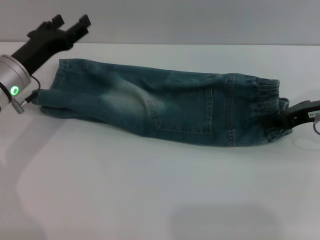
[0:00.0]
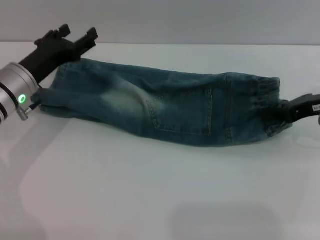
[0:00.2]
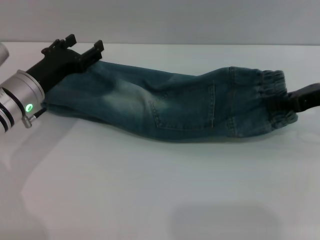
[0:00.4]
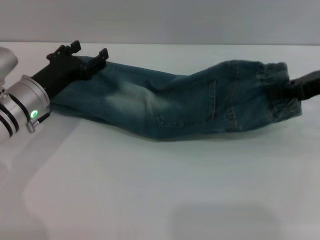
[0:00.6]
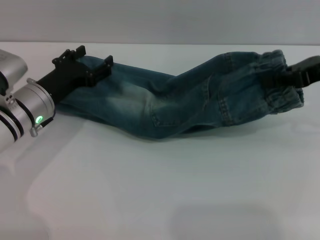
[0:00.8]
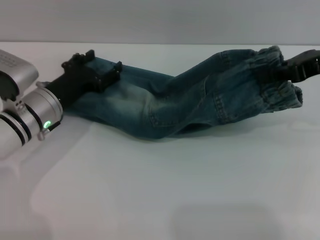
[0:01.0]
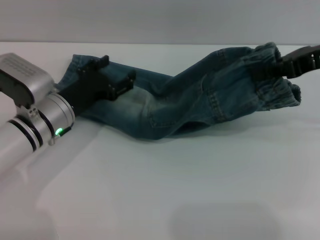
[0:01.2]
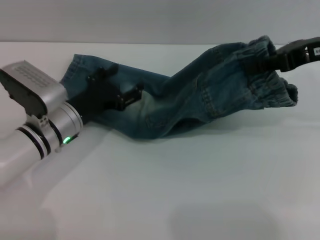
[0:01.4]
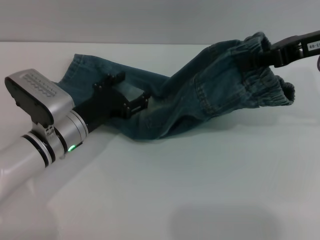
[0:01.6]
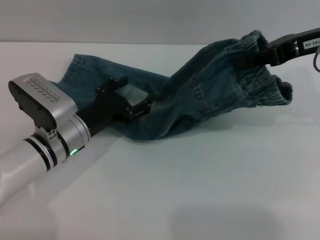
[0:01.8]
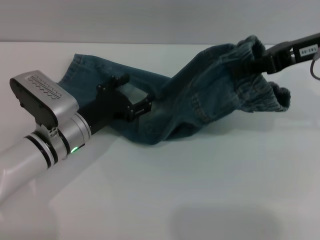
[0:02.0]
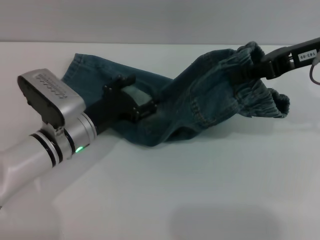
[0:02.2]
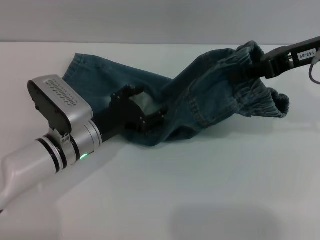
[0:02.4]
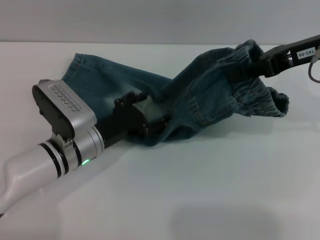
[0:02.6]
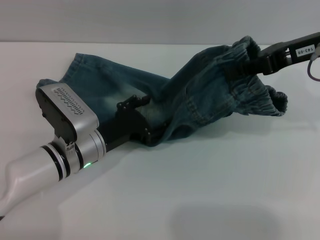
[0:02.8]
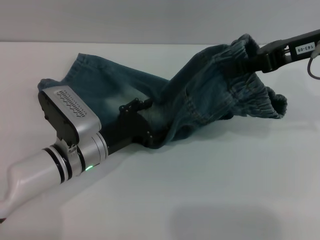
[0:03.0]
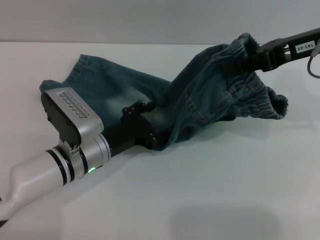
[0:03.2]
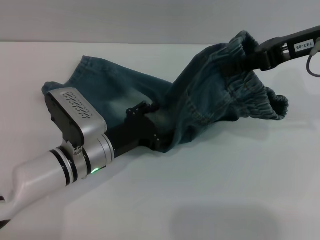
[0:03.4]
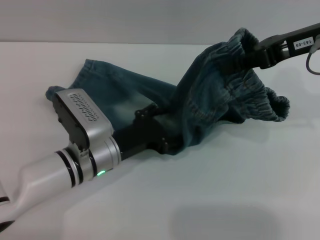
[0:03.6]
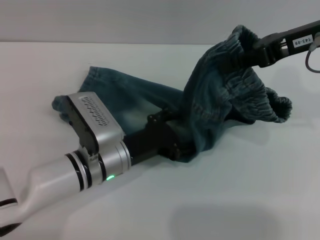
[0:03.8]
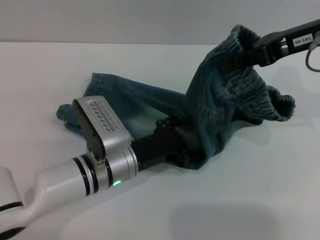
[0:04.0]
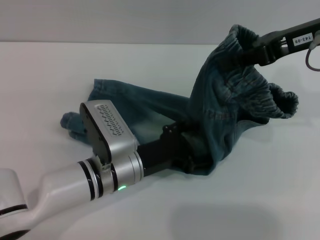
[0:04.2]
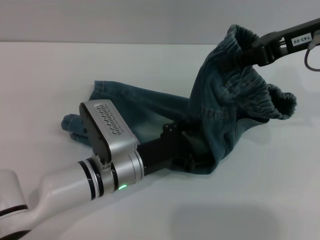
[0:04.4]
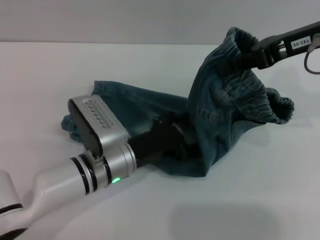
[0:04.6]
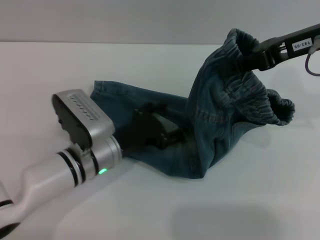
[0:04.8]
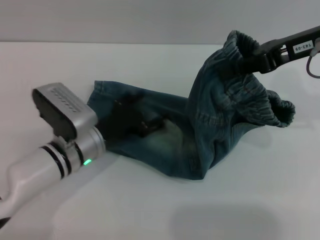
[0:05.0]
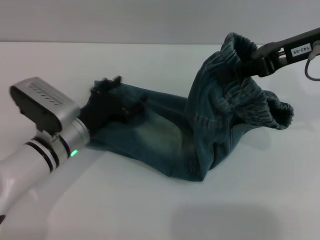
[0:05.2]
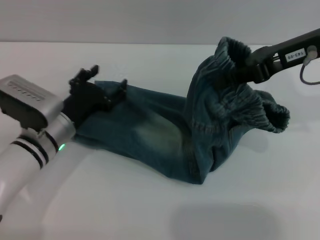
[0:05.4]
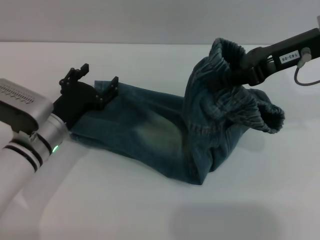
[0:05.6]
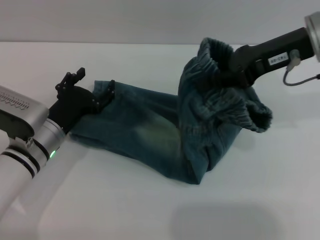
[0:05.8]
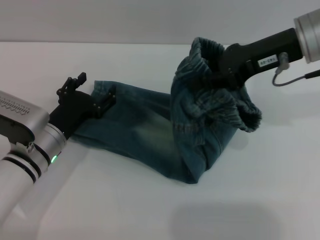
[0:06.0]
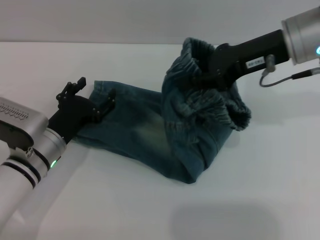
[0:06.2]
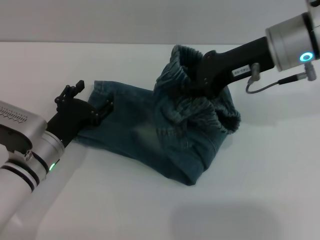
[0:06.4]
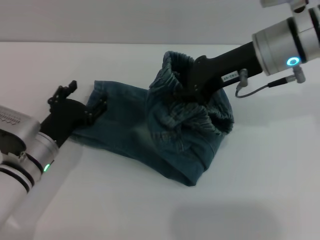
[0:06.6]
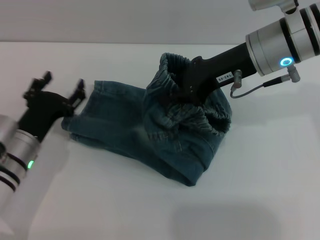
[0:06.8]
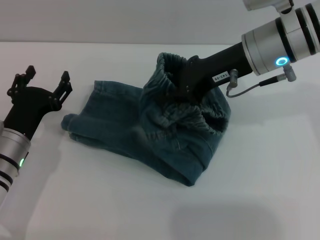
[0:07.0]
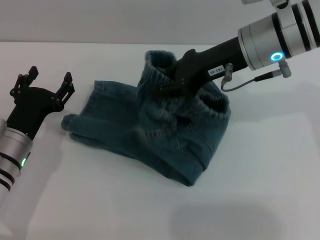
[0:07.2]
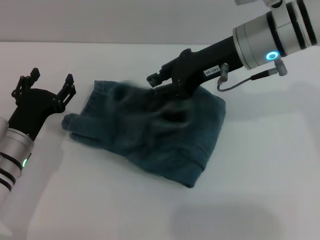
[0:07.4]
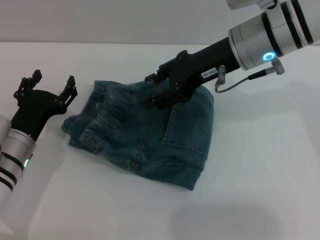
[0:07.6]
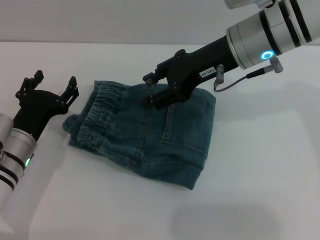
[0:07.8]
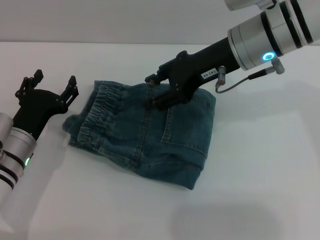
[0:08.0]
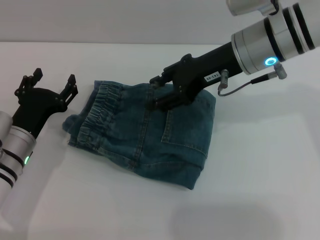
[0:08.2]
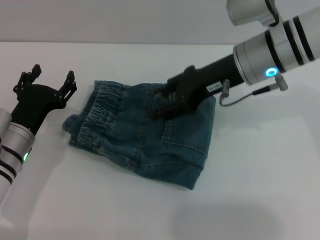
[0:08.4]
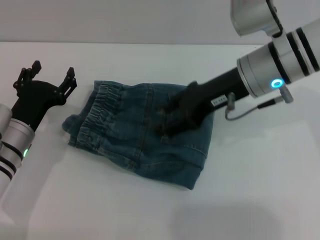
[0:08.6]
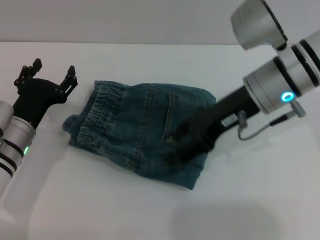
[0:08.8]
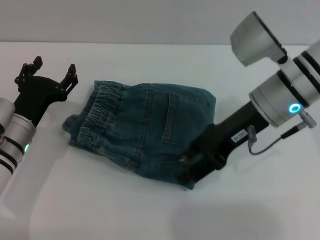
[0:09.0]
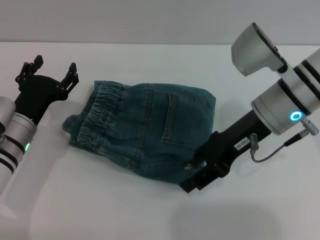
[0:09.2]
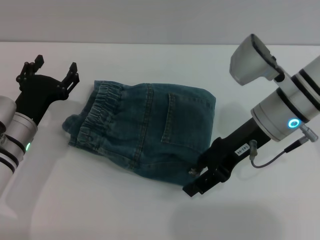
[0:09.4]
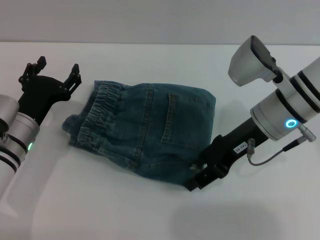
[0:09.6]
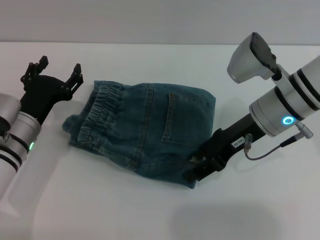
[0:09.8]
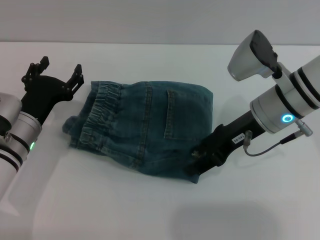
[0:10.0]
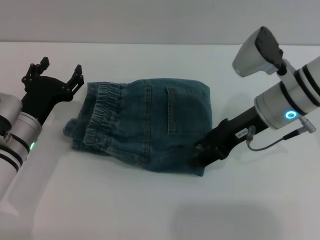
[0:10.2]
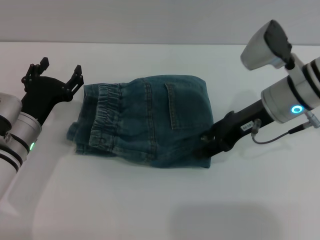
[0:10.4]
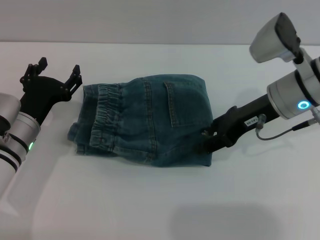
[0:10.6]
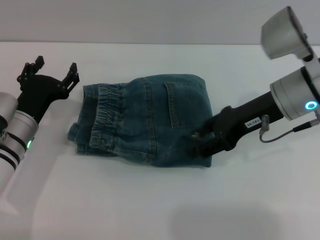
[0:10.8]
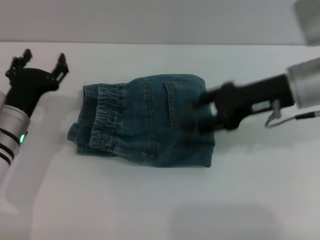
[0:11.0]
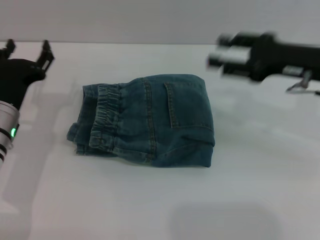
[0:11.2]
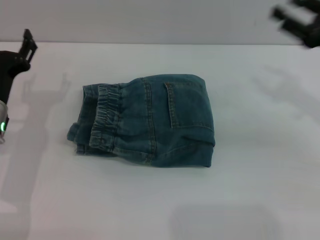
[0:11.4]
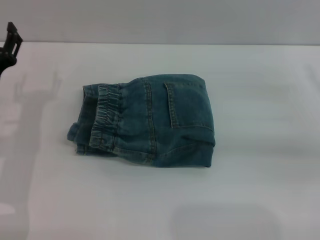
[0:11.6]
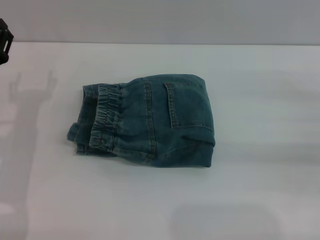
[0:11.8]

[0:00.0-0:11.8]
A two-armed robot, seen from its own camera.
Step, 0:00.0 to 0:07.8: Fold the pants from right to left with the right gripper.
Step, 0:08.0 to 0:10.6: Place the folded trousers onto the center area with the right grippers.
0:00.0 to 0:01.4: The right gripper shifts roughly 10 cm upward. The left gripper is displaced to the right and downward by approximately 10 cm.
0:01.4 to 0:03.0: The grippers make only small movements.
0:03.0 to 0:04.4: The left gripper travels to the right by some 5 cm.
0:04.4 to 0:06.0: The left gripper heads to the left, covering some 10 cm.
0:06.0 to 0:07.4: The right gripper travels to the left by approximately 5 cm.
0:07.4 to 0:08.8: The right gripper opens up.
0:08.8 to 0:10.4: The right gripper ends up approximately 5 cm from where it was.
0:10.4 to 0:11.8: The left gripper moves roughly 5 cm, while the right gripper is displaced to the right by approximately 20 cm.

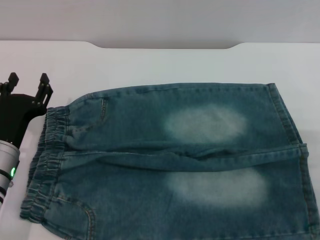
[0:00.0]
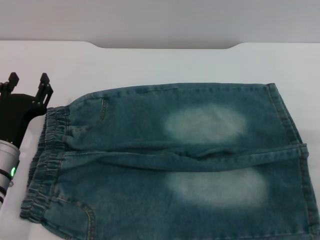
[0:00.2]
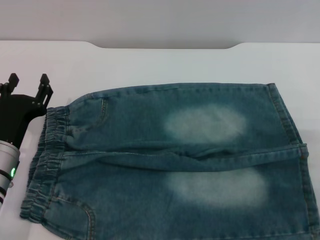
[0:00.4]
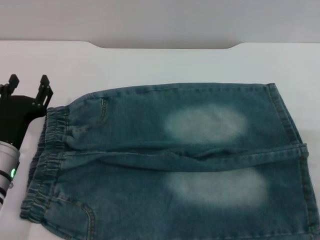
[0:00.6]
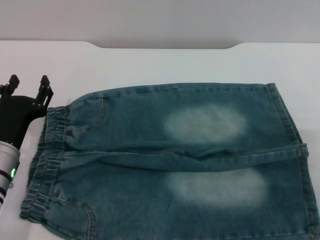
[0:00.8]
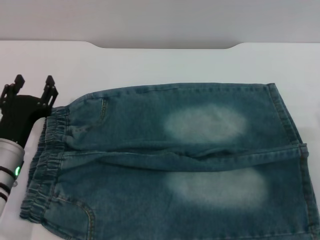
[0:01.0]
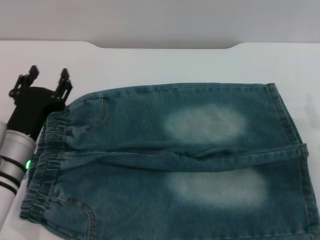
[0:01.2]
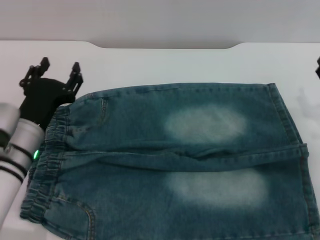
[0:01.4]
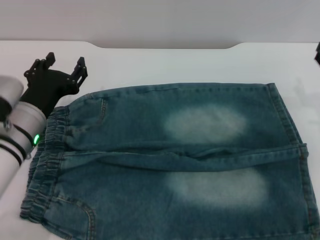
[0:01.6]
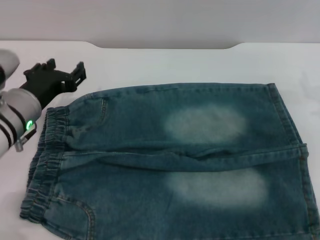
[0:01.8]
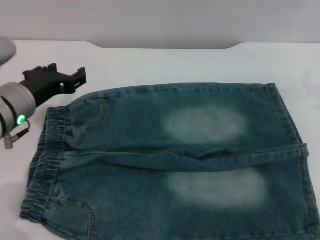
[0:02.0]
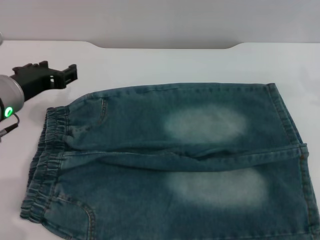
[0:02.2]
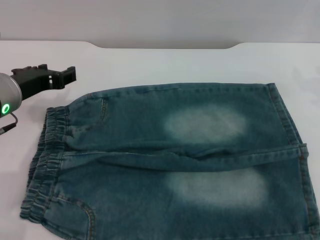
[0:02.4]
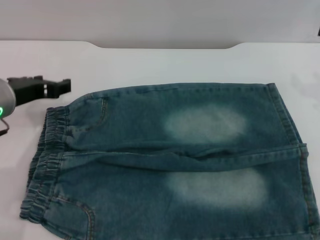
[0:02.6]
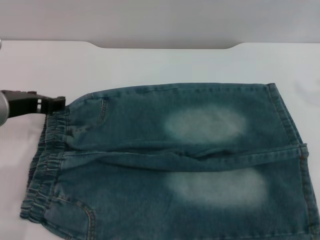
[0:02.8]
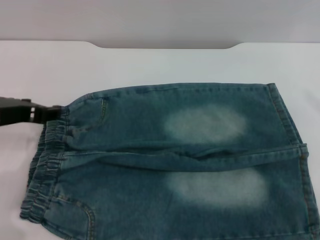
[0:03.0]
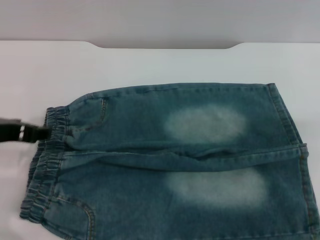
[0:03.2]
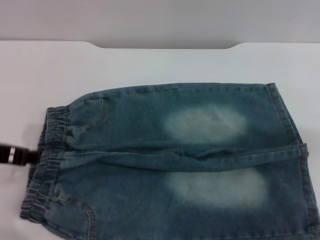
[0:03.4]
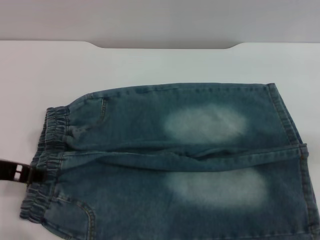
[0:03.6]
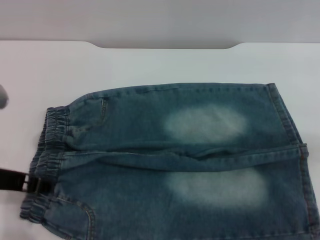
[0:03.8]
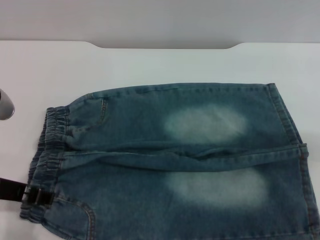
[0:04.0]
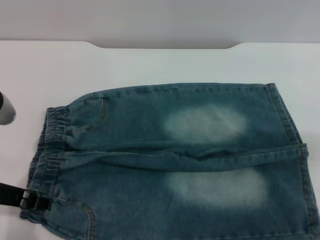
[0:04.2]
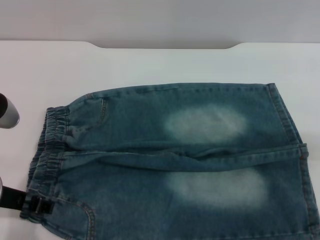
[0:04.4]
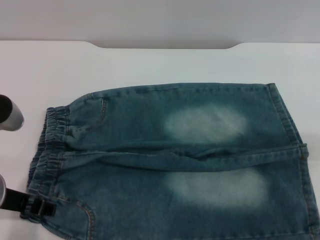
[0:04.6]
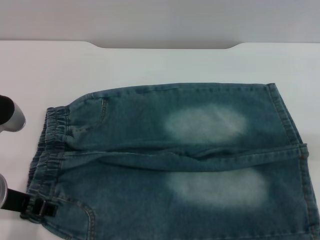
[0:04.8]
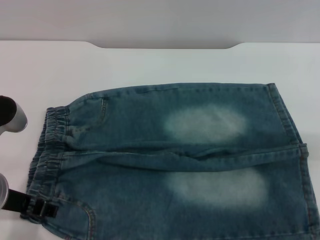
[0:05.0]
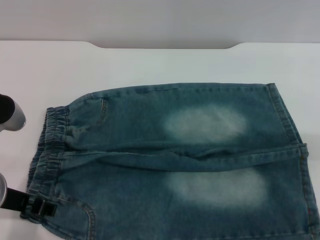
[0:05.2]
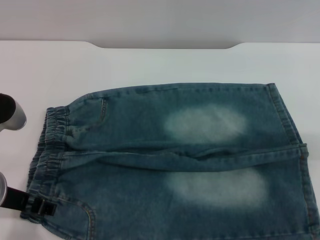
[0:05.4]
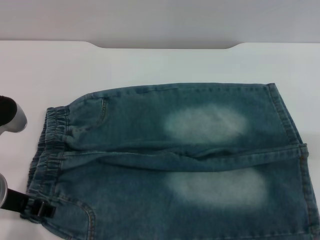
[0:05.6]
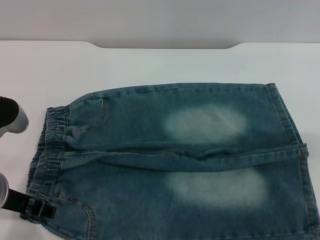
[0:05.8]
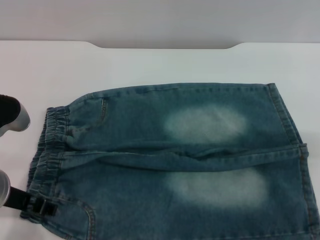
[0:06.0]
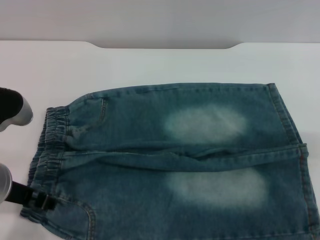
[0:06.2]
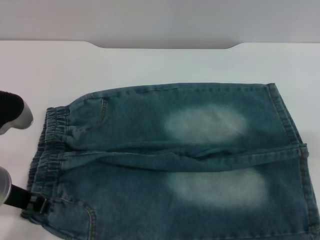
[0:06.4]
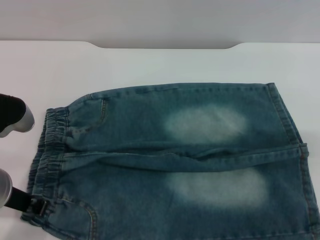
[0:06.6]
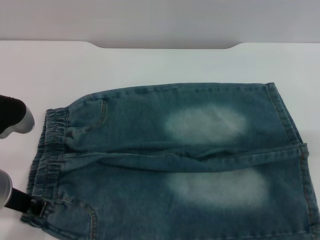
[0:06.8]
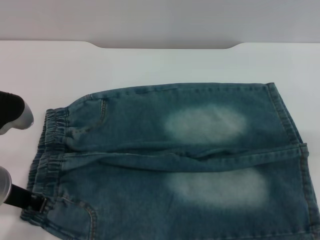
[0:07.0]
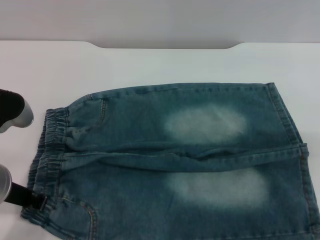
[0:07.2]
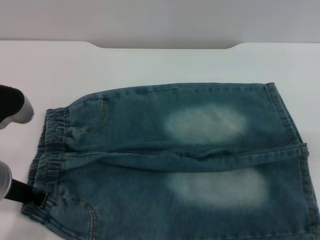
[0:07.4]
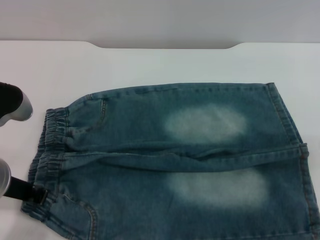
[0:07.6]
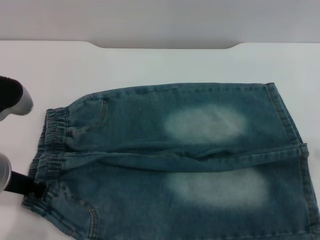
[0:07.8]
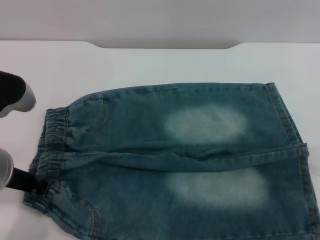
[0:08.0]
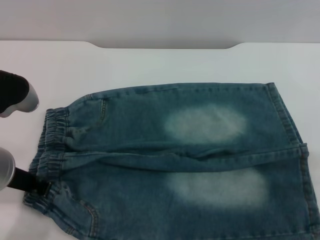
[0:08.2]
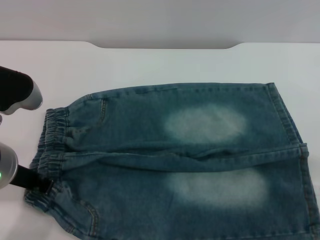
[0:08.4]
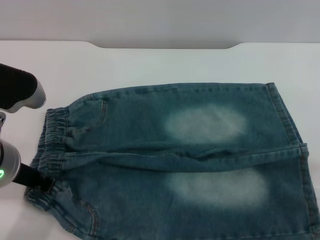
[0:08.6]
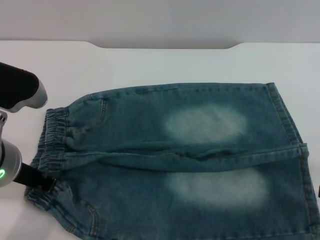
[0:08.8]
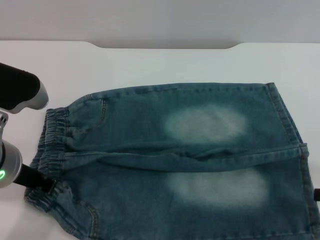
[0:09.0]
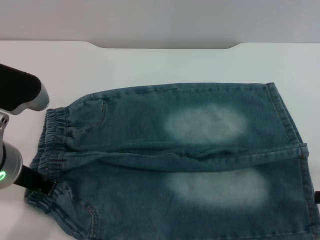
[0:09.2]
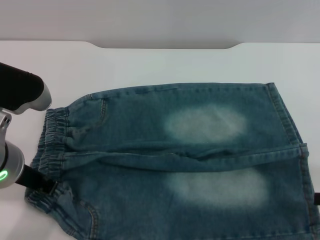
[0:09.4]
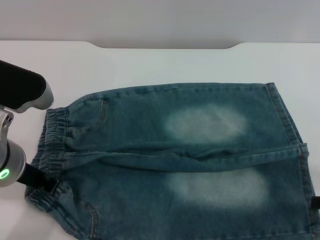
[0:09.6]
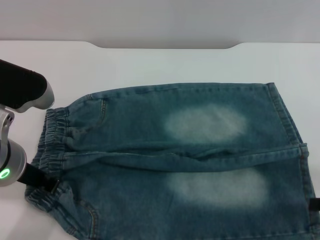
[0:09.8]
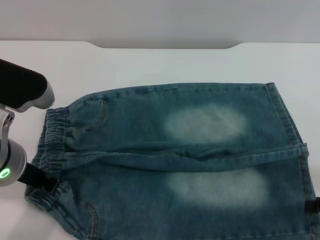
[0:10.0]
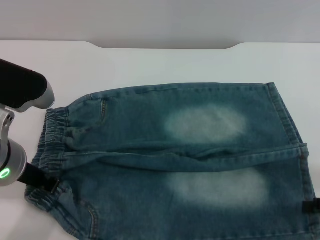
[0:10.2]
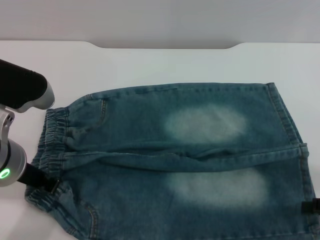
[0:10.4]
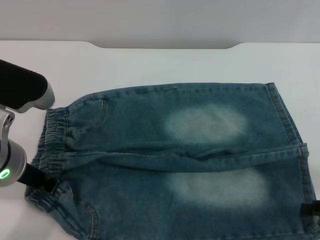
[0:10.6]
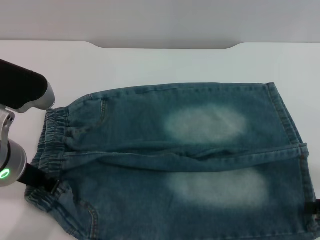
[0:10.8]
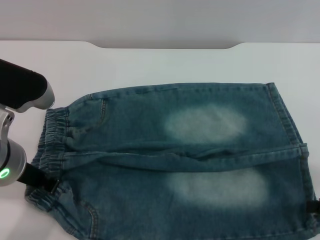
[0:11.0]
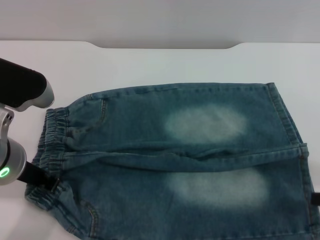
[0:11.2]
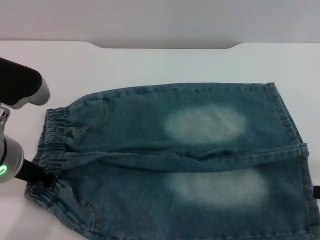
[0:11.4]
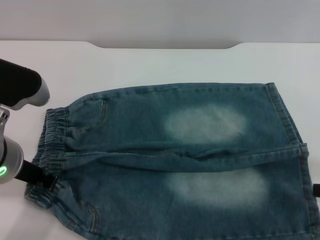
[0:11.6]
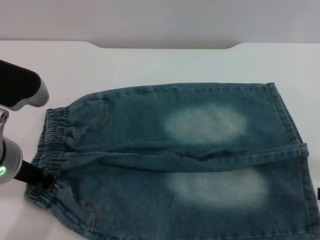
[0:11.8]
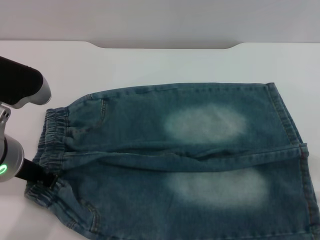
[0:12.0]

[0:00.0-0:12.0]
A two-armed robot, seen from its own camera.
0:00.0 to 0:01.6: The left gripper goes some 5 cm upward.
0:01.6 to 0:03.0: The left gripper is displaced upward by about 10 cm.
0:03.0 to 0:04.4: The left gripper travels backward by roughly 5 cm.
0:04.4 to 0:06.0: The grippers make only small movements.
0:06.0 to 0:07.6: The left gripper closes.
0:09.0 to 0:10.4: The grippers stay close to where they were, moving slightly.
